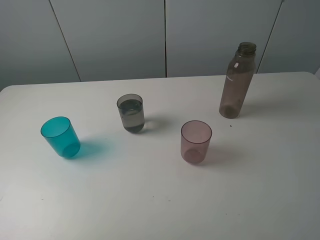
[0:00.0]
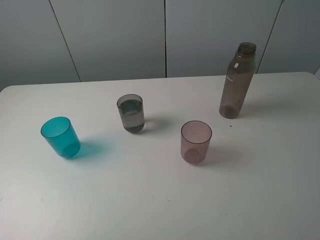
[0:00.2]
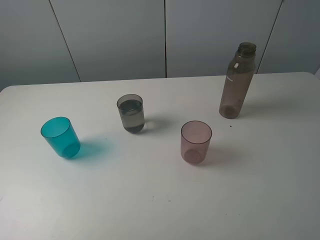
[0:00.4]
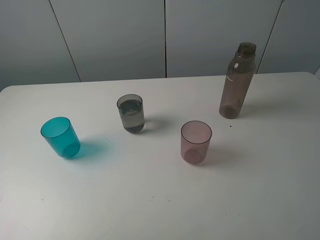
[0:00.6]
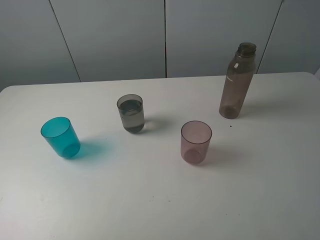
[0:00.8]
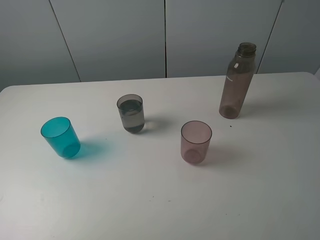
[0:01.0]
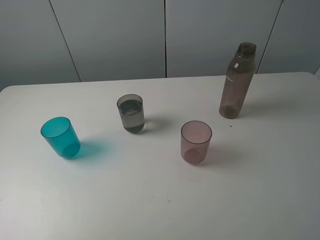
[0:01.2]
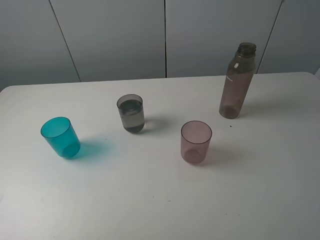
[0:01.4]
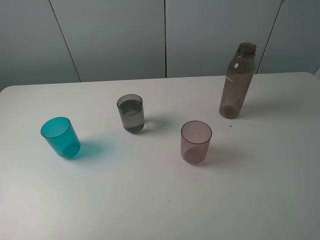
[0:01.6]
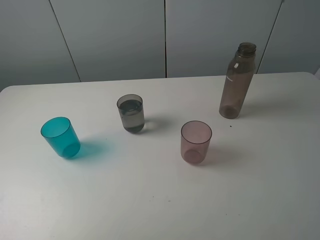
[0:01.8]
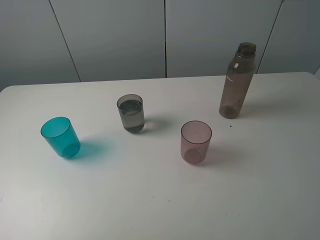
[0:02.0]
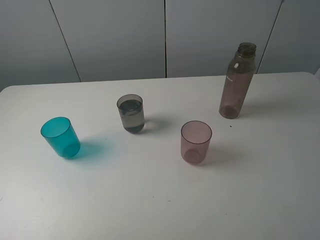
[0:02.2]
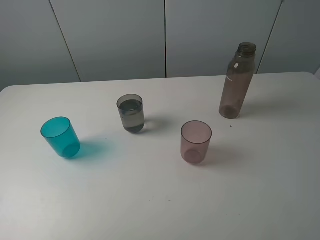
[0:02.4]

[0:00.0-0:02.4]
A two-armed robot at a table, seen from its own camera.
Task of the whole recording: pick up the bottle filled with water and pour water into the middle cup of the three cups.
0:01.2 to 0:02.4: The two grippers keep their place.
